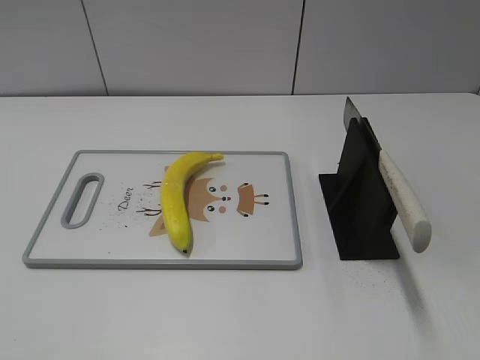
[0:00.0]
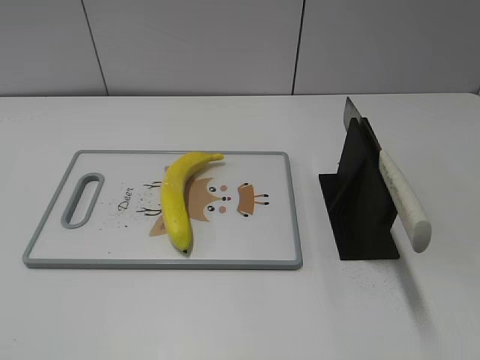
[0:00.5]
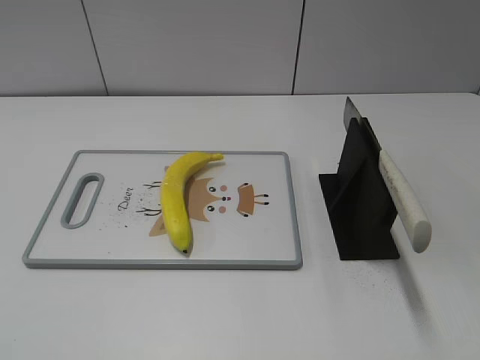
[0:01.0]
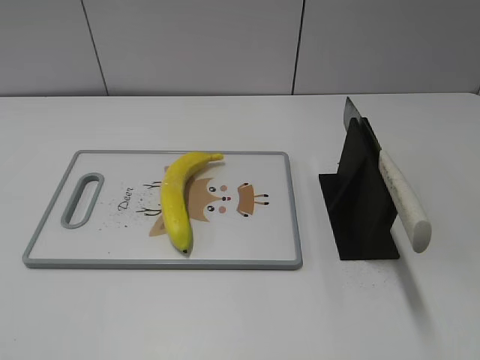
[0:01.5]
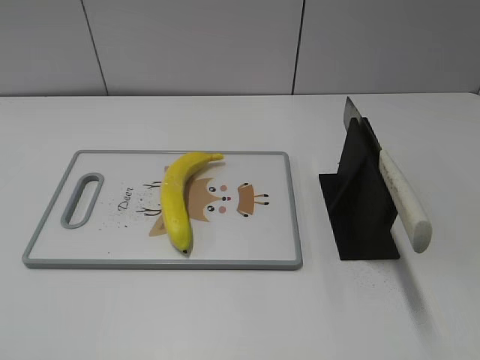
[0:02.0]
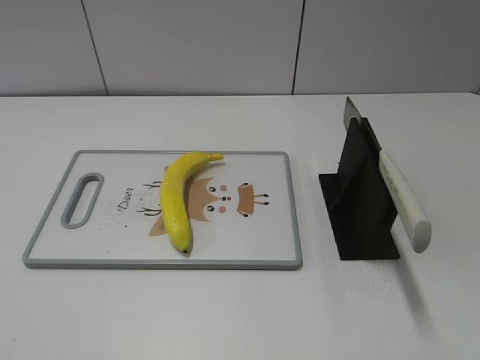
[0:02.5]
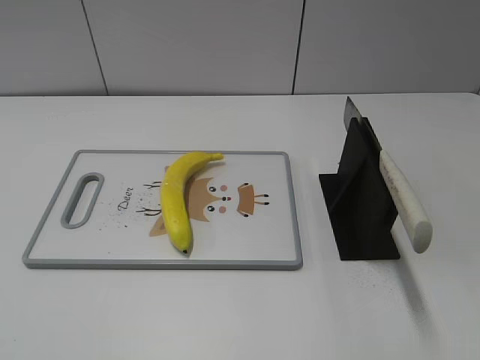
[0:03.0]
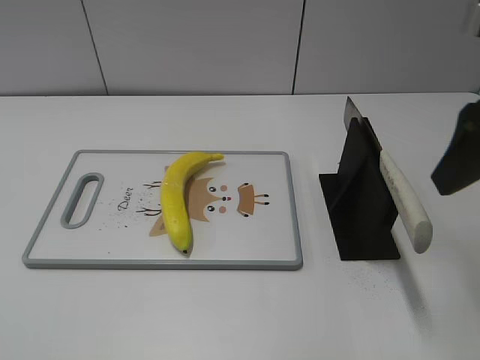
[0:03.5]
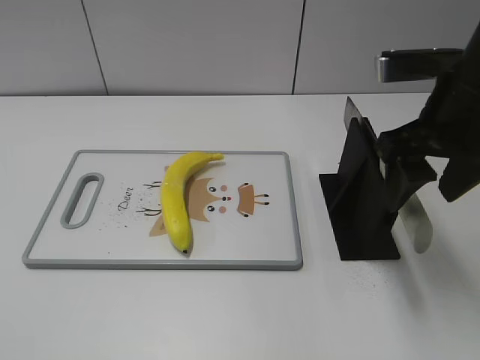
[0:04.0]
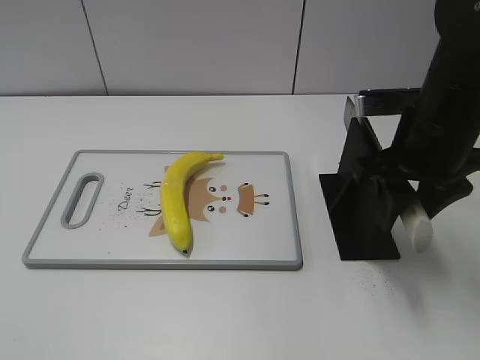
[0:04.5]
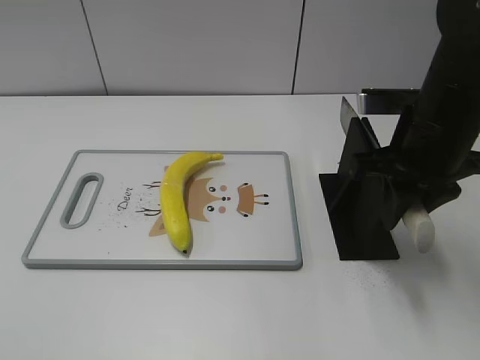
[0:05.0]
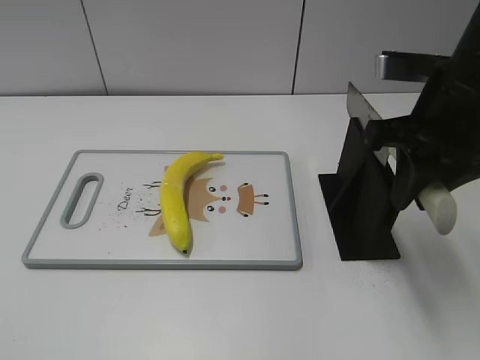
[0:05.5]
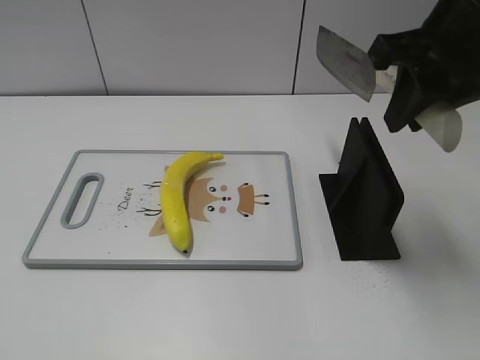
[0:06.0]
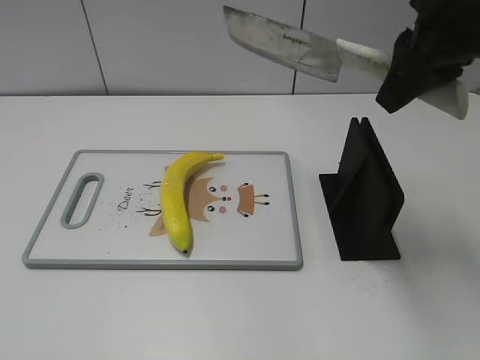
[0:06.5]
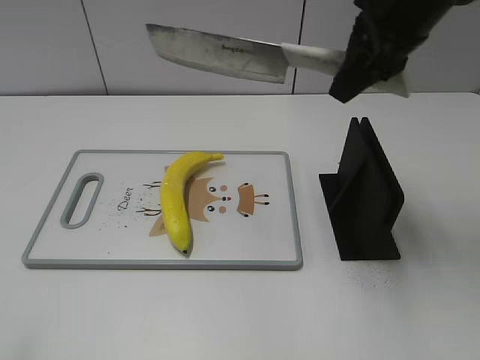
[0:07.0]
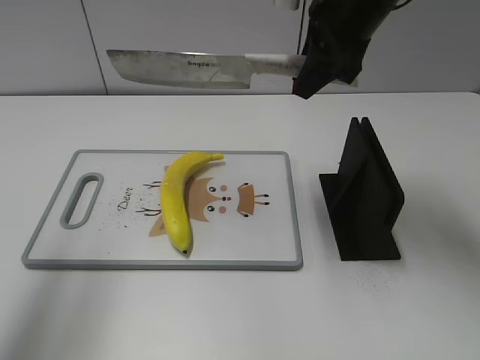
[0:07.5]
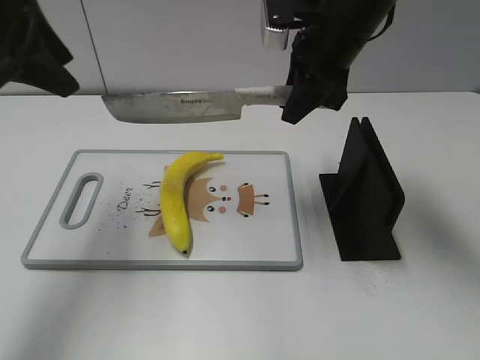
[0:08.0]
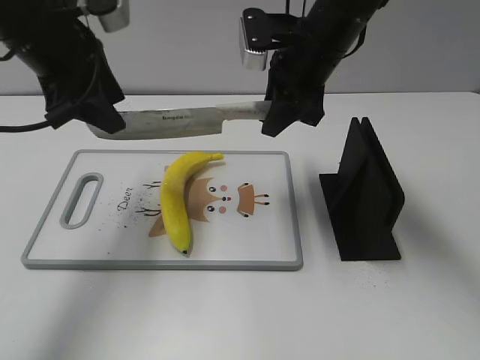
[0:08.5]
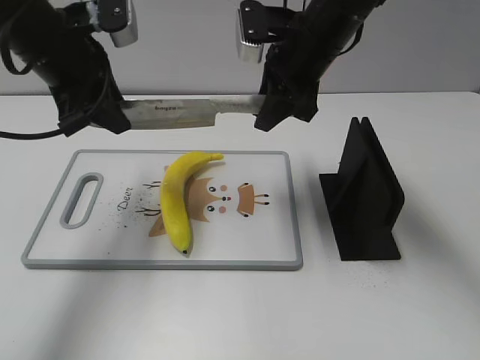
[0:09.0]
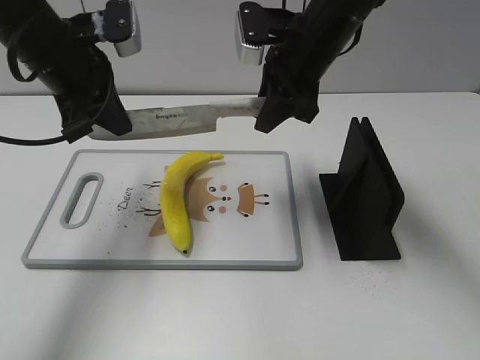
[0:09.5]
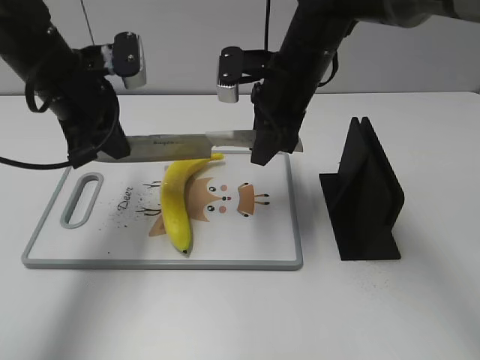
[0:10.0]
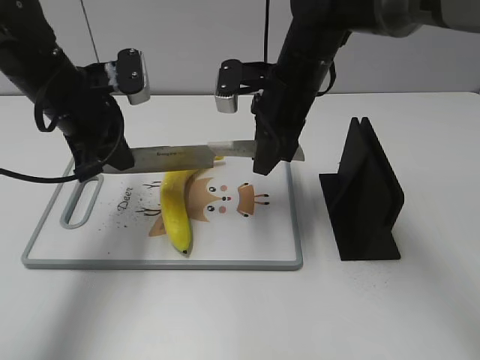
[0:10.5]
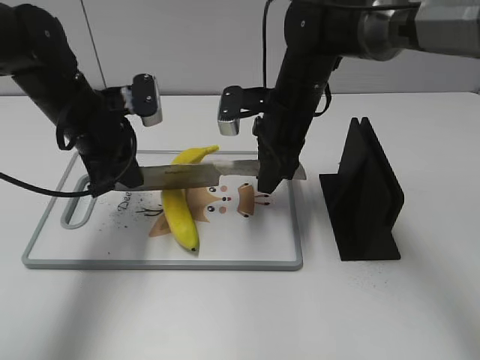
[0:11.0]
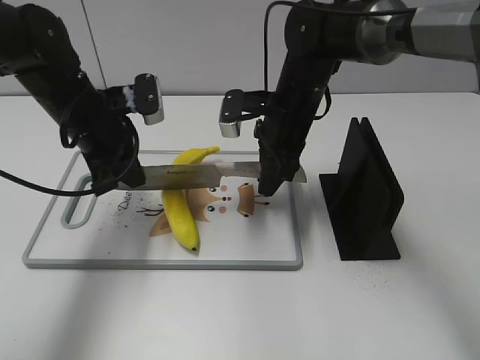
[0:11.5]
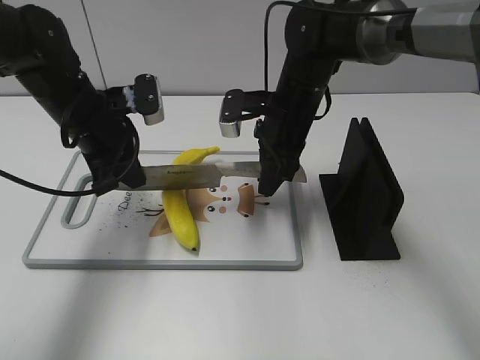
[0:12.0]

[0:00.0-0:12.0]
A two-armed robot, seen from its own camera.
Task of the whole recording: cut plastic banana.
Step, 0:00.0 to 0:06.0: Grab the knife handle with your right hand.
Step, 0:06.5 to 0:11.5: Lift the knife with your right hand.
0:02.0 to 0:04.0: The right gripper is displaced forward by about 25 cm.
0:04.0 to 0:06.0: The right gripper travels upward by approximately 5 cm, and closes.
0:06.0 to 0:08.0: The left gripper goes roughly 35 cm forward, while the right gripper heads forward, to the left and downward, covering roughly 15 cm.
0:08.0 to 0:10.0: The left gripper moves downward, some 10 cm, and closes. The right gripper moves downward, approximately 5 cm.
0:10.0 to 0:12.0: The two grippers go approximately 5 cm downward.

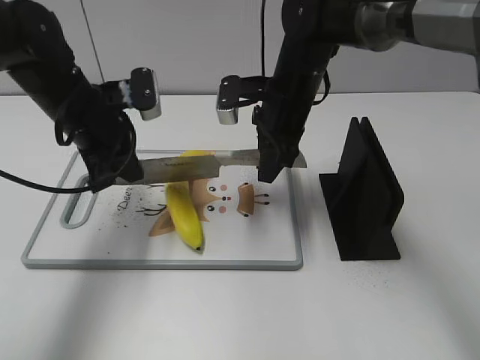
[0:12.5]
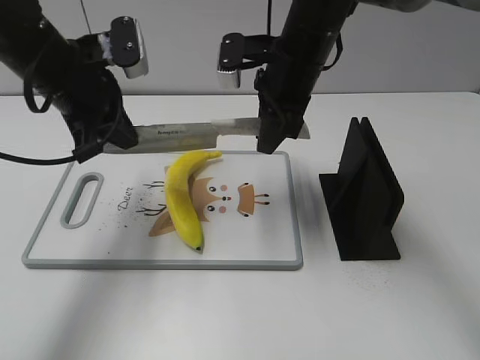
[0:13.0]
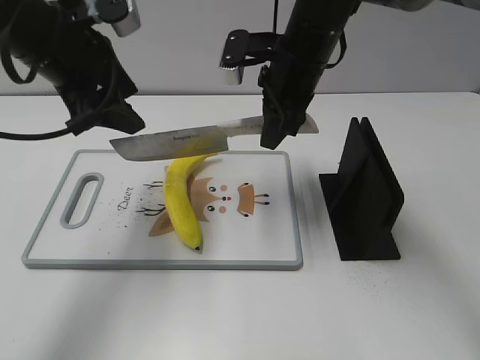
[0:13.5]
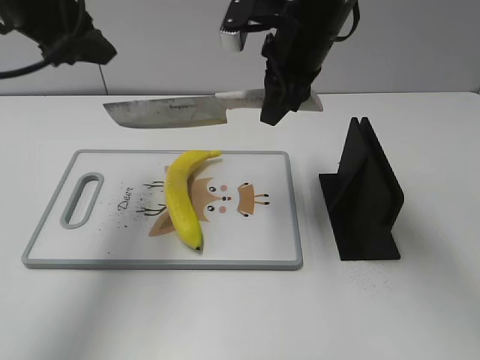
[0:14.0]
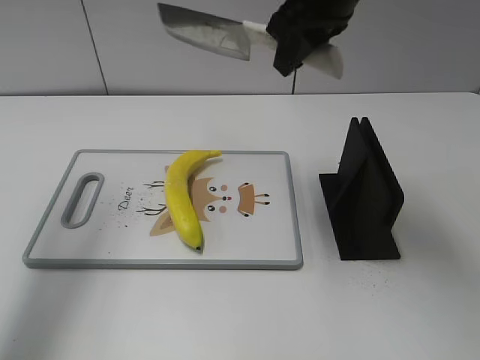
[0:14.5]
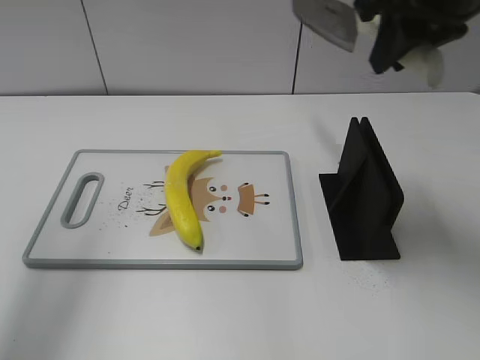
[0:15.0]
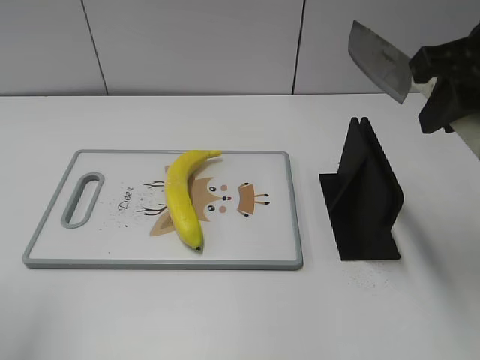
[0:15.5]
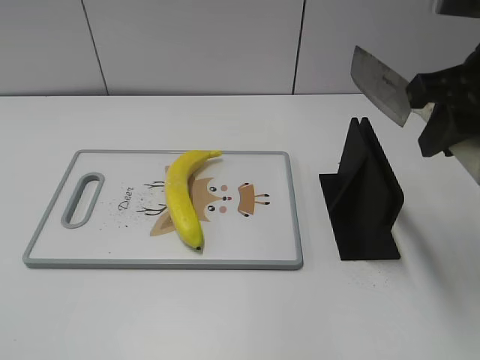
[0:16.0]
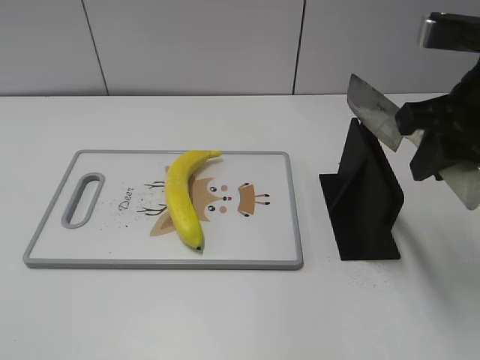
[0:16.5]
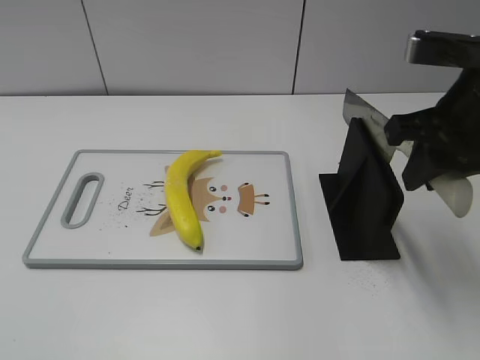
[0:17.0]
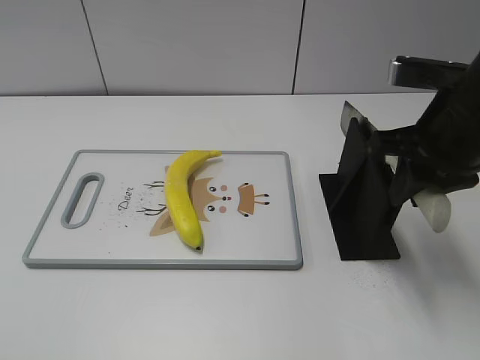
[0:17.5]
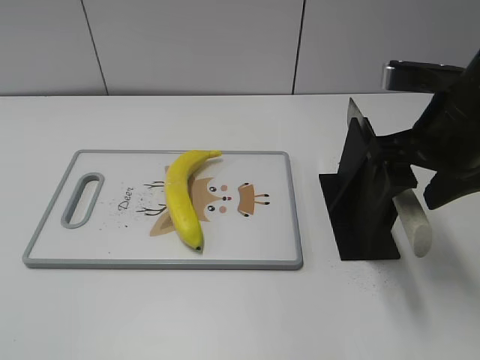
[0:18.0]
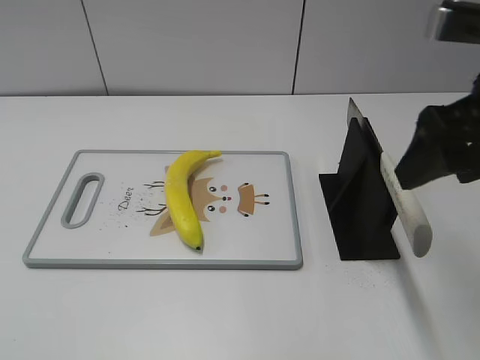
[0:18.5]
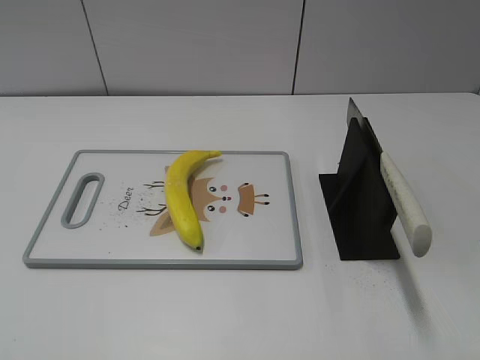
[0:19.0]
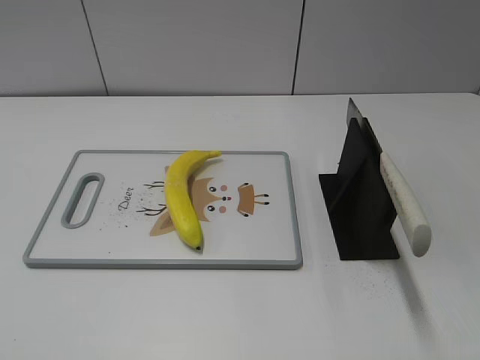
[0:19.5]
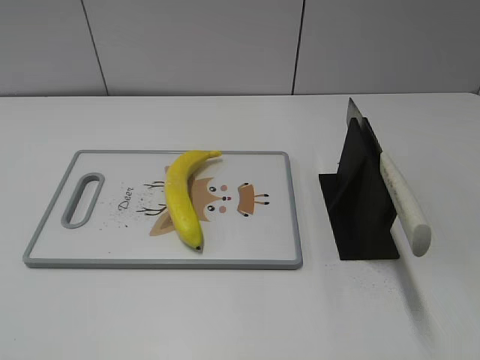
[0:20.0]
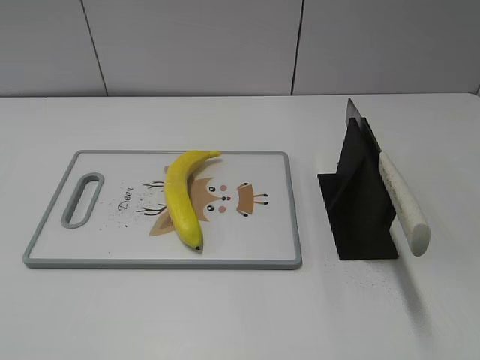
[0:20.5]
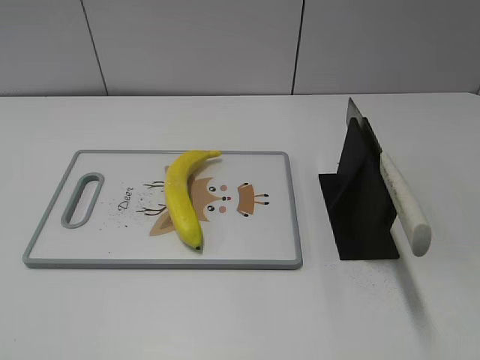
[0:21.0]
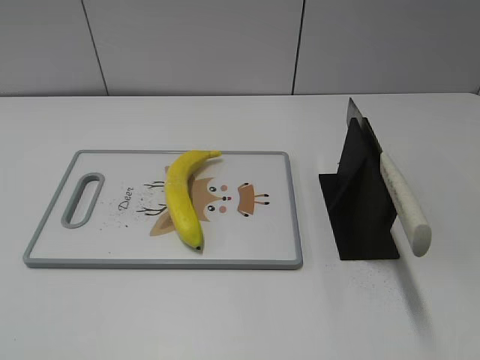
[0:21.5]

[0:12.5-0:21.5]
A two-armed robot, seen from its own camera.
Task of the whole recording: cut plastic banana.
Step, 0:14.5 to 0:16.5: Lift the knife with your right hand.
Step, 0:17.0 to 0:21.5: Place the knife on the storage rack with your right hand.
0:12.5 to 0:14.5: The left gripper goes about 20 cm upward and to the left, and opens. Meanwhile the right gripper shifts about 15 cm upward.
0:14.5 to 0:17.0: The right gripper goes roughly 15 cm to the right, backward and downward. The left gripper shifts about 30 cm backward.
0:17.0 to 0:19.5: The right gripper moves backward, roughly 20 cm, and opens.

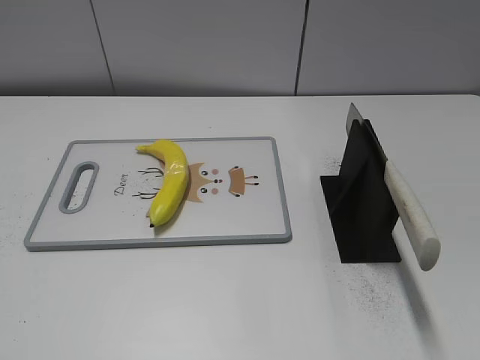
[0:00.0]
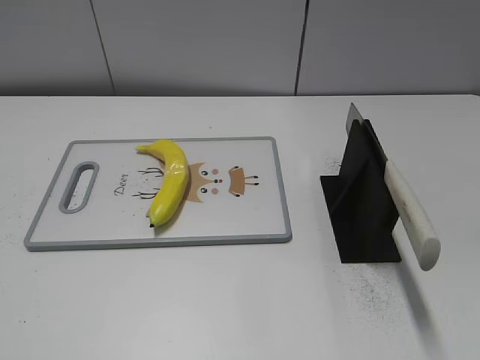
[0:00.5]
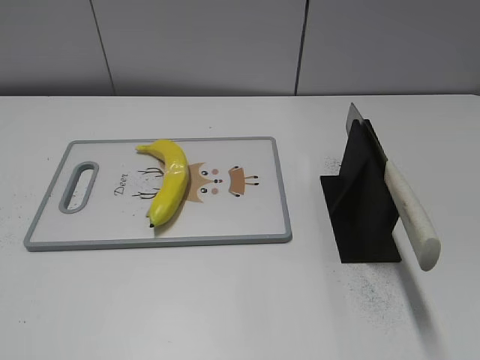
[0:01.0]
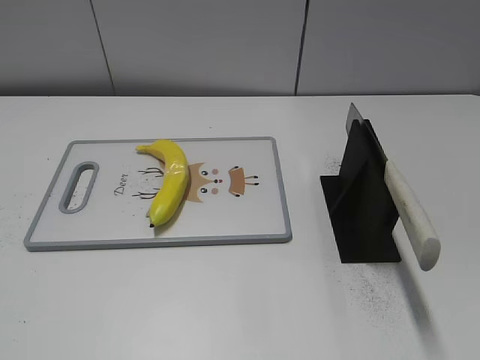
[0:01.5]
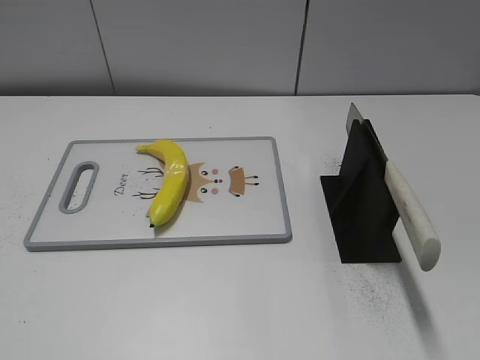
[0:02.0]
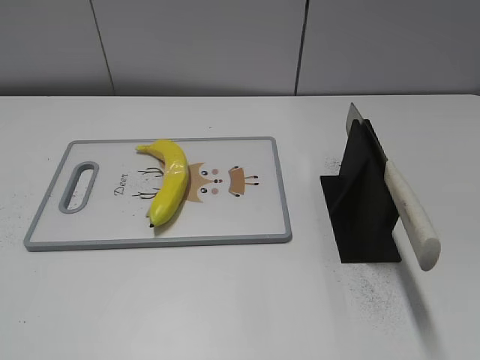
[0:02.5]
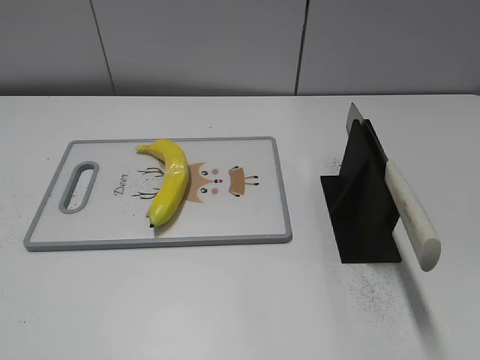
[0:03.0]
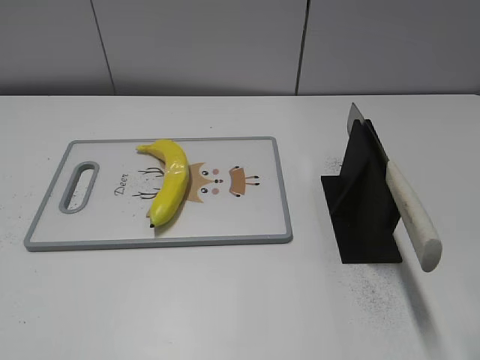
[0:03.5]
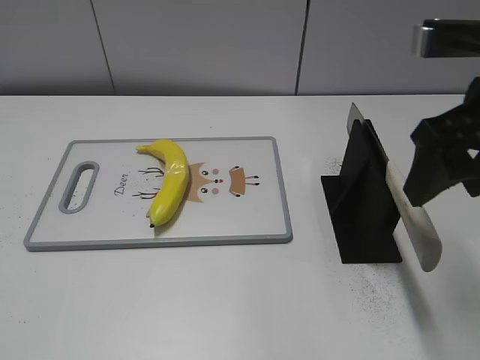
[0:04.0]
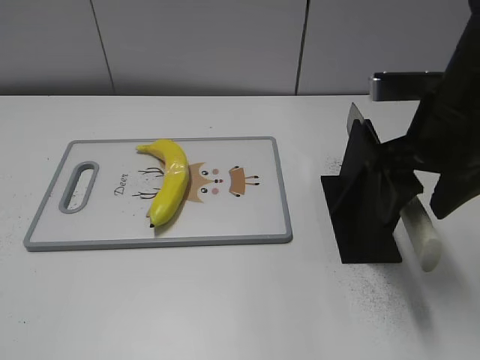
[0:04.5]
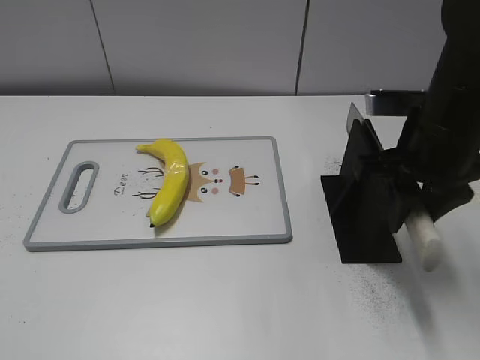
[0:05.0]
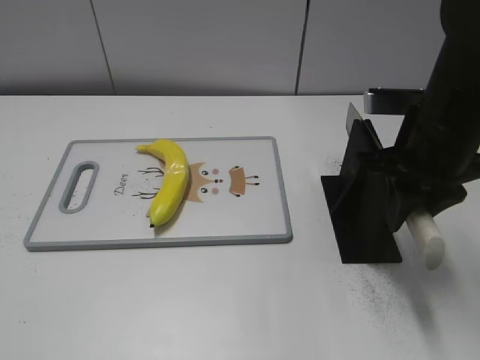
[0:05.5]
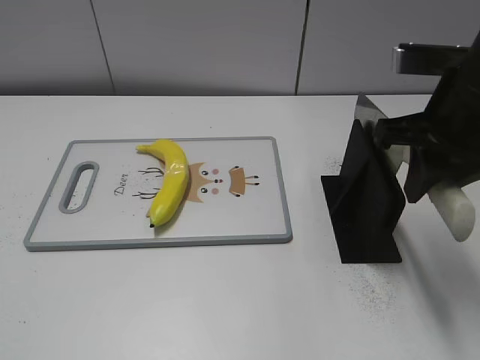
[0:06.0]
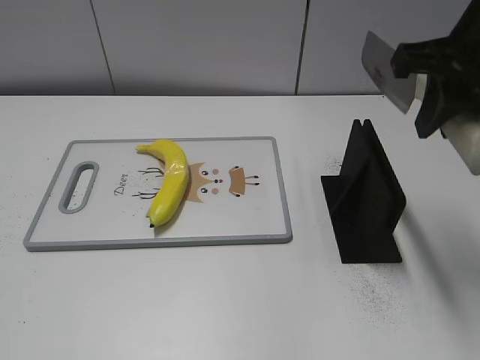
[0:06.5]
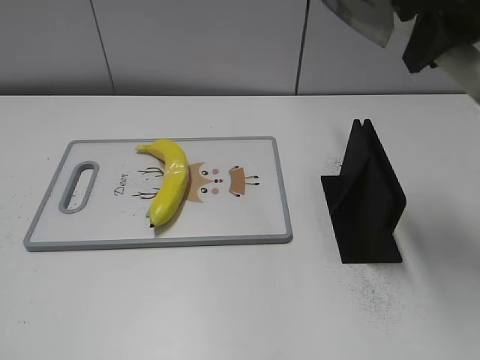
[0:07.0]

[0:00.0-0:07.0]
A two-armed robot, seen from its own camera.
Task of the whole recording: cut plastic banana.
Step, 0:00.0 to 0:06.0: Grab the knife handle with your right hand.
0:03.5 to 0:05.0: The right gripper goes approximately 15 cm forward, downward and to the left, and closes its fingers.
0:05.0 to 0:07.0: The right gripper travels upward by about 15 cm.
